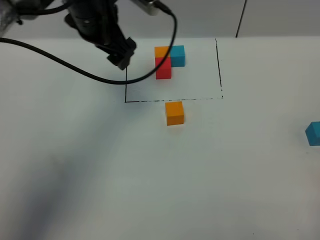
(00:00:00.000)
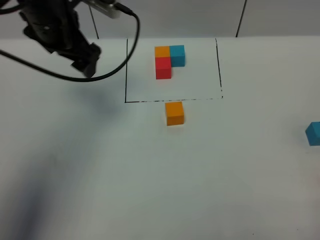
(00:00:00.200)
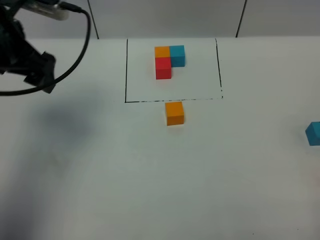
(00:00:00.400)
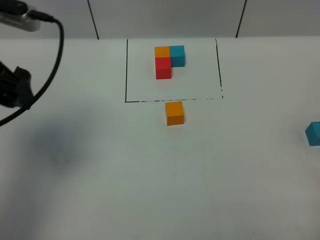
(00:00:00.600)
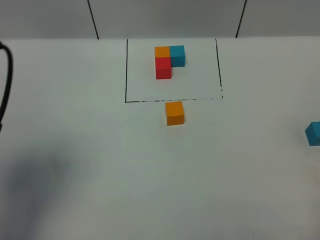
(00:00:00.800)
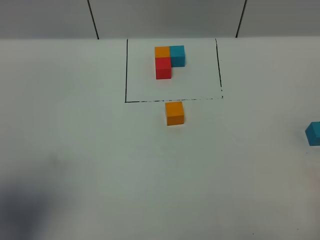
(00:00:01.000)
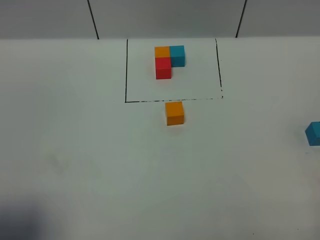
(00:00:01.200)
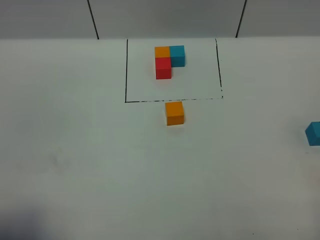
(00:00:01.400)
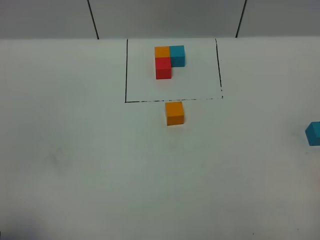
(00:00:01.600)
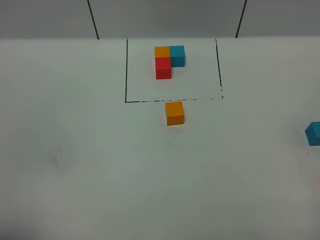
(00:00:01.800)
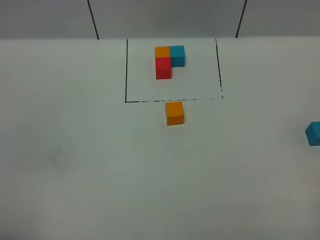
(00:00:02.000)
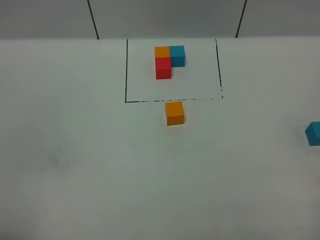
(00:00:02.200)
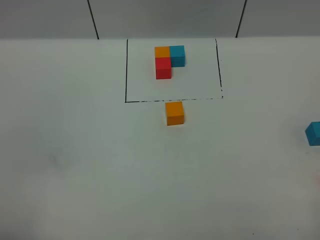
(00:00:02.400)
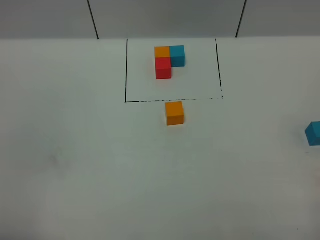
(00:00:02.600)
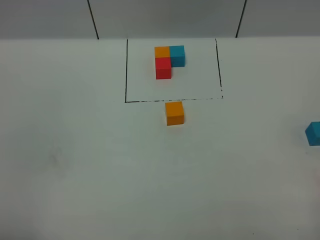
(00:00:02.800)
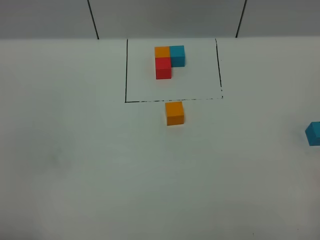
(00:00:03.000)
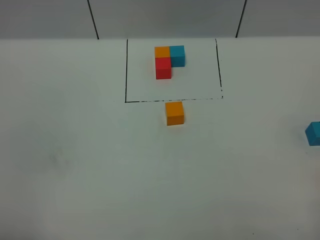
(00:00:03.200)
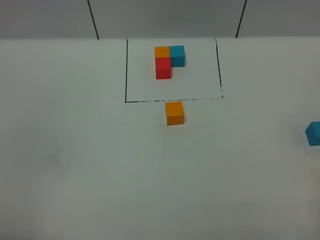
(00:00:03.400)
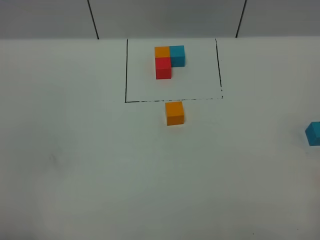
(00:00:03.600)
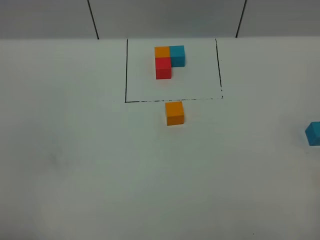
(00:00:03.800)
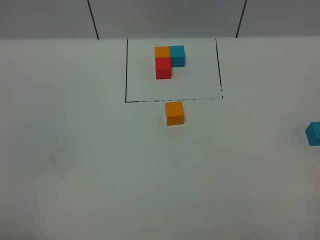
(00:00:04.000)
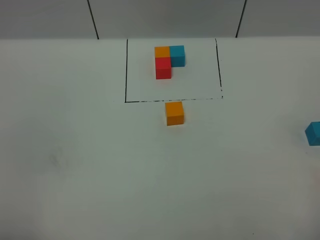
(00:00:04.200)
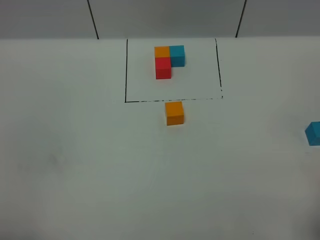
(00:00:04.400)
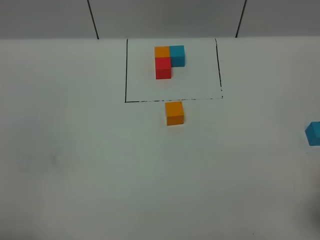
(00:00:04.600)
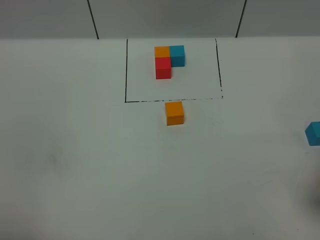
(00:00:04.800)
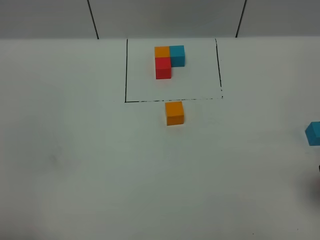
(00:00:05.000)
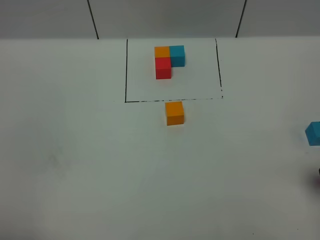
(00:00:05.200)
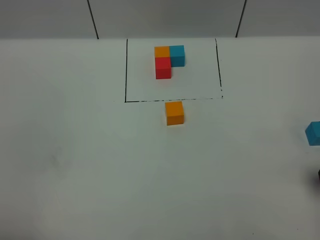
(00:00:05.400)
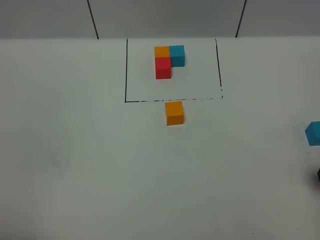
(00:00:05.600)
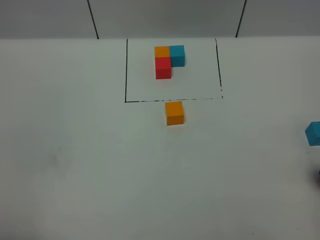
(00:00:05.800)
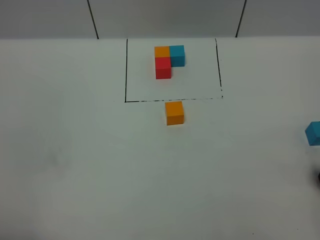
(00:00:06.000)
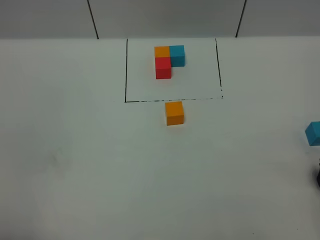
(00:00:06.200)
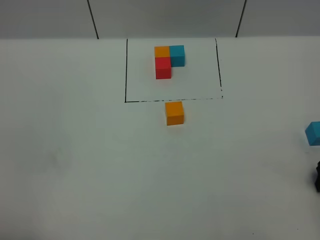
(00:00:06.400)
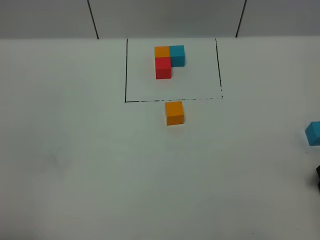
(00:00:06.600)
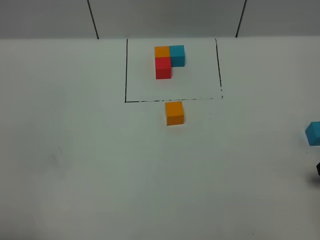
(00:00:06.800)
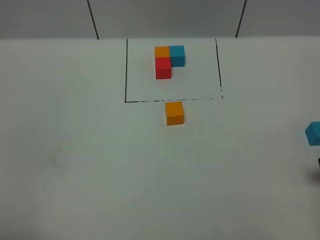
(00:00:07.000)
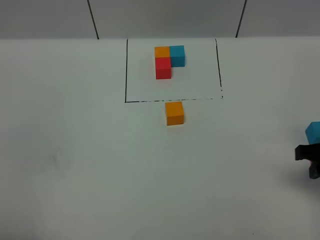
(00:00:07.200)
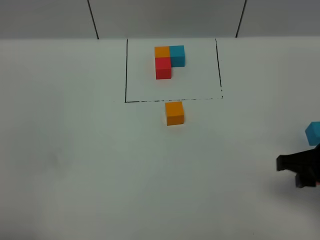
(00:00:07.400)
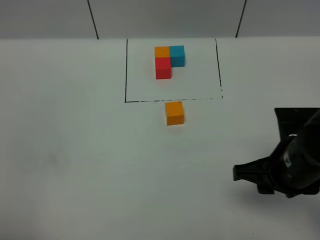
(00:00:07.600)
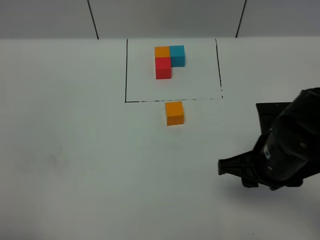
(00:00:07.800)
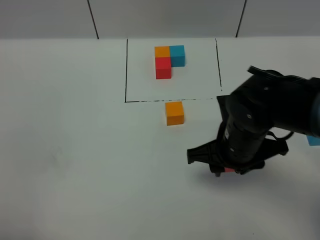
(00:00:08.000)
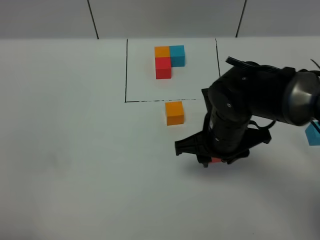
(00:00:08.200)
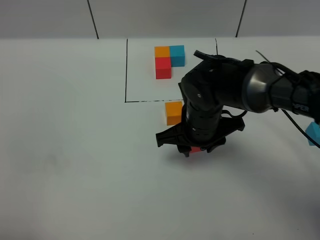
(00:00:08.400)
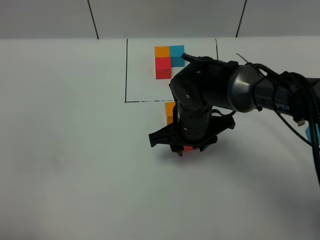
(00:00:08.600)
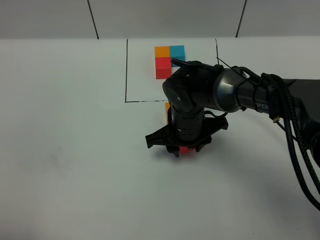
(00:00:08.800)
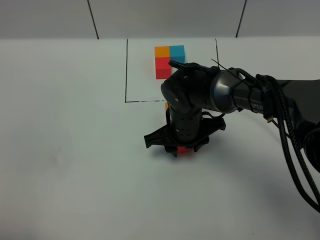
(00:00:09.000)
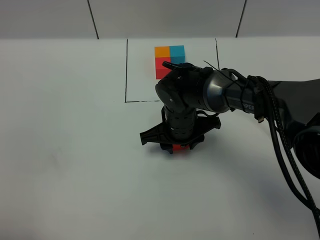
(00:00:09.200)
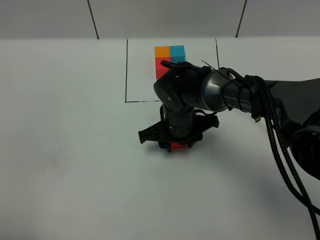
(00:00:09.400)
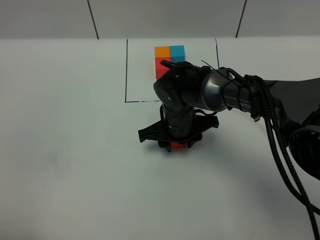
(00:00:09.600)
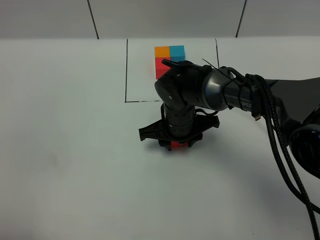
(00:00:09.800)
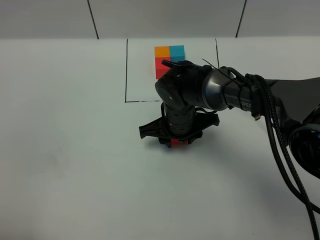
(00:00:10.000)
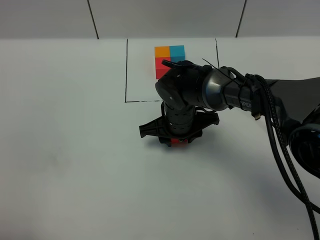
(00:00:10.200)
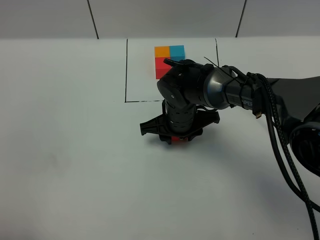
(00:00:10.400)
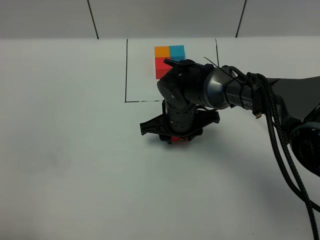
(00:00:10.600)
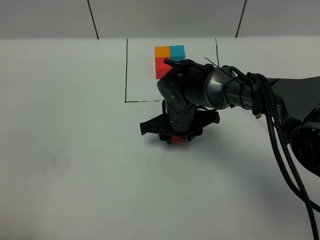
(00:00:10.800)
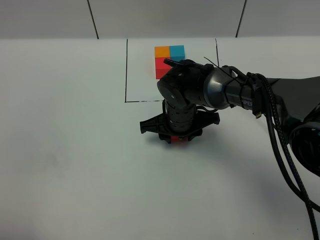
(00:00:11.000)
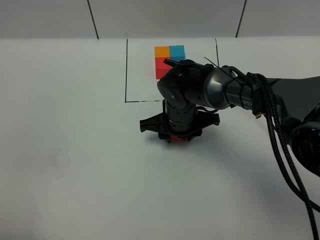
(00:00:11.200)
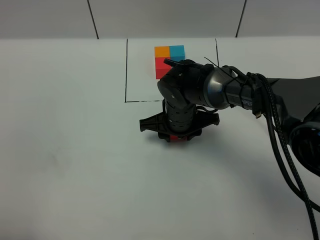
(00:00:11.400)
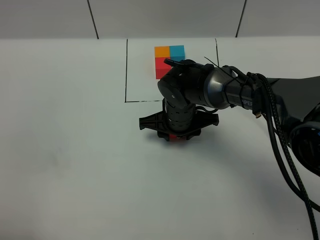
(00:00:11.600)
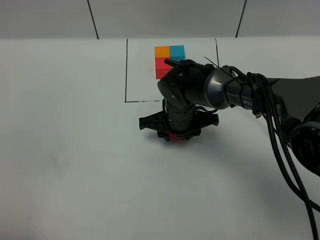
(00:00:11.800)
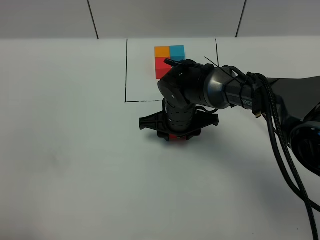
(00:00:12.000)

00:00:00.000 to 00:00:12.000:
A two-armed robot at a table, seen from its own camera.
Task of the whole recording: According to the building block template in front, assemble the scattered blocks together.
00:00:00.000 to 00:00:01.600: The left gripper goes roughly 40 cm backward.
00:00:06.000 to 00:00:07.600: The right gripper goes about 20 cm to the left, and closes up.
00:00:07.600 to 00:00:09.000: The right gripper goes about 20 cm forward, to the left and downward.
00:00:09.000 to 00:00:12.000: The grippers move only a little.

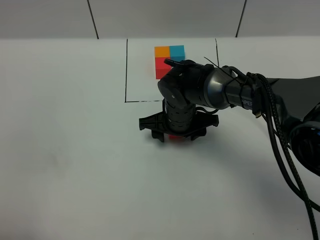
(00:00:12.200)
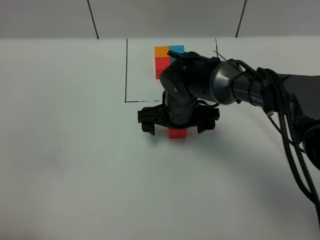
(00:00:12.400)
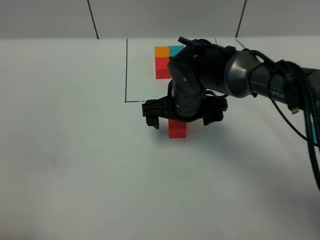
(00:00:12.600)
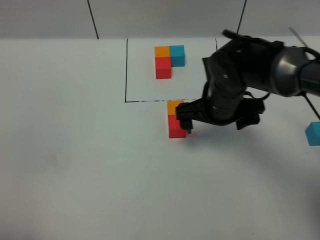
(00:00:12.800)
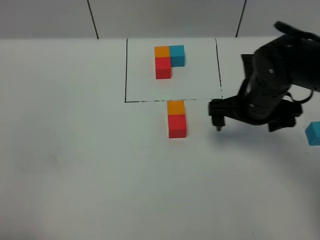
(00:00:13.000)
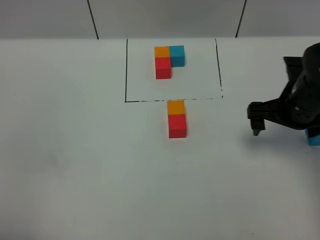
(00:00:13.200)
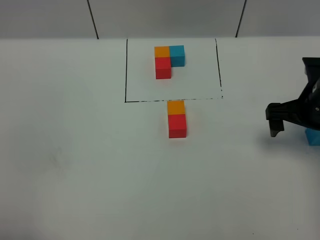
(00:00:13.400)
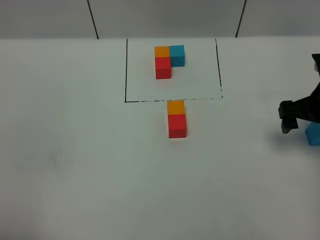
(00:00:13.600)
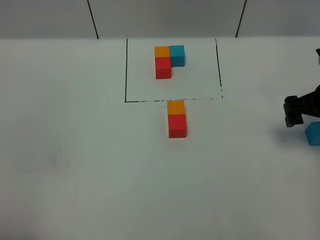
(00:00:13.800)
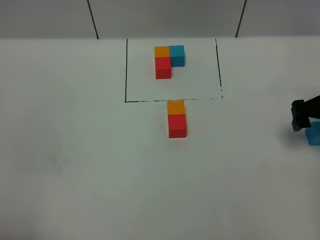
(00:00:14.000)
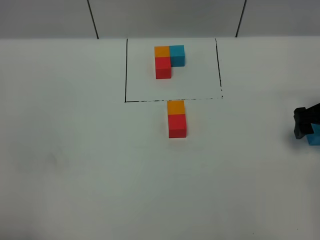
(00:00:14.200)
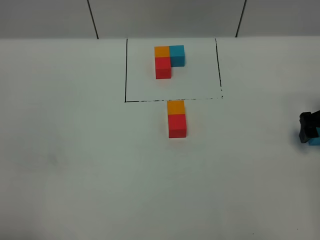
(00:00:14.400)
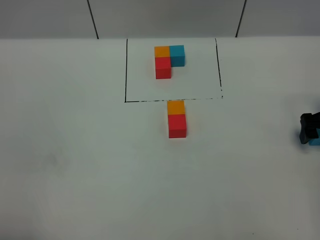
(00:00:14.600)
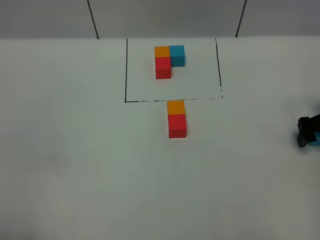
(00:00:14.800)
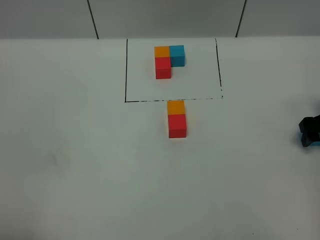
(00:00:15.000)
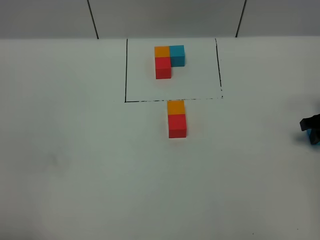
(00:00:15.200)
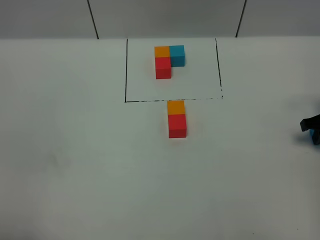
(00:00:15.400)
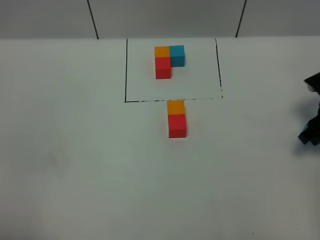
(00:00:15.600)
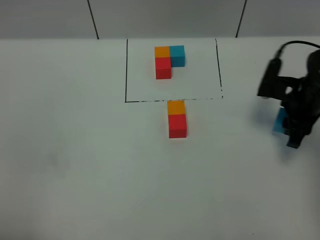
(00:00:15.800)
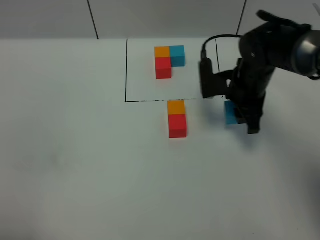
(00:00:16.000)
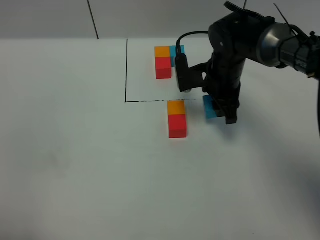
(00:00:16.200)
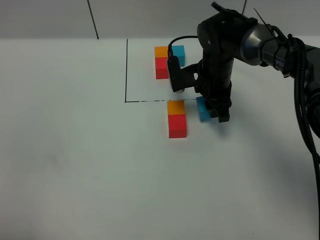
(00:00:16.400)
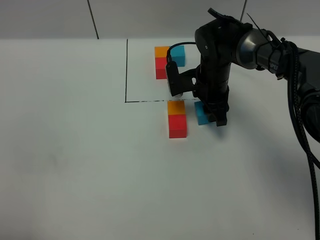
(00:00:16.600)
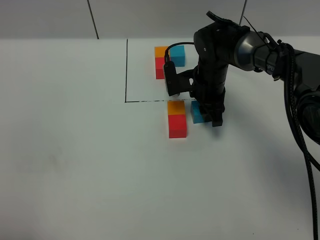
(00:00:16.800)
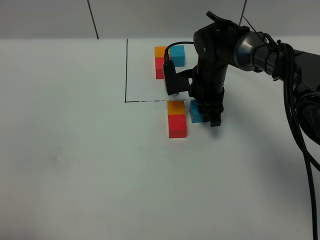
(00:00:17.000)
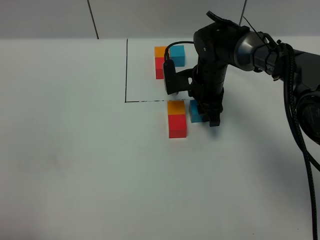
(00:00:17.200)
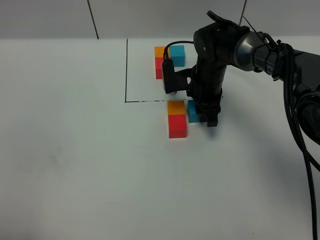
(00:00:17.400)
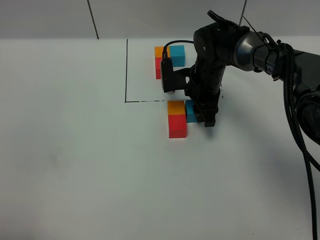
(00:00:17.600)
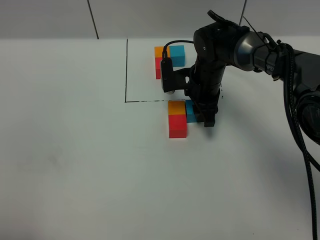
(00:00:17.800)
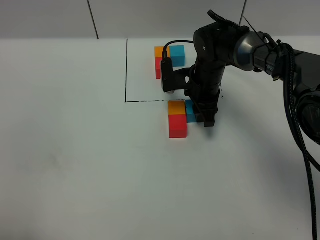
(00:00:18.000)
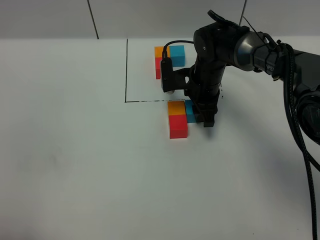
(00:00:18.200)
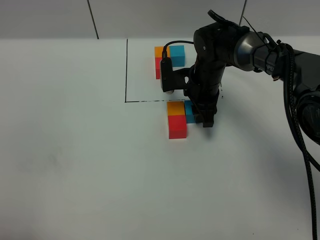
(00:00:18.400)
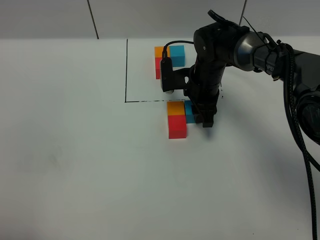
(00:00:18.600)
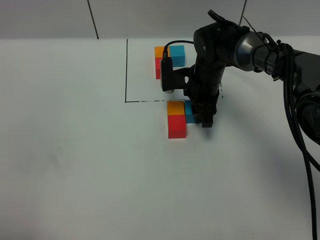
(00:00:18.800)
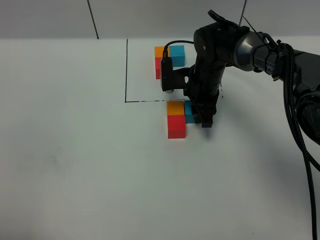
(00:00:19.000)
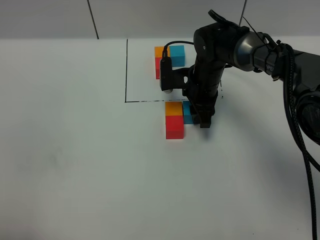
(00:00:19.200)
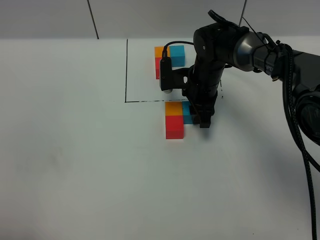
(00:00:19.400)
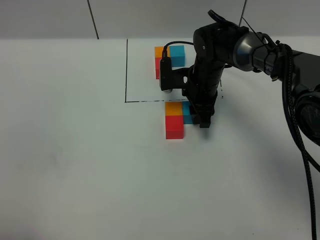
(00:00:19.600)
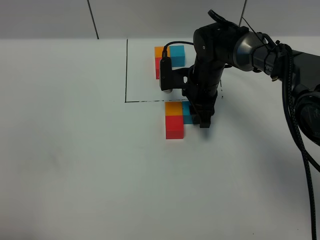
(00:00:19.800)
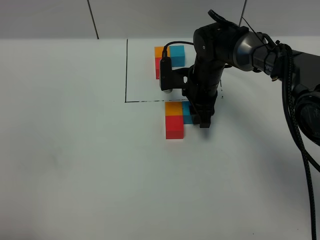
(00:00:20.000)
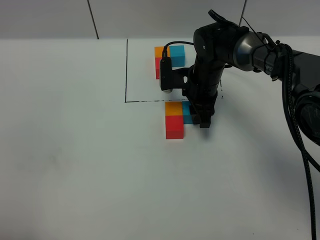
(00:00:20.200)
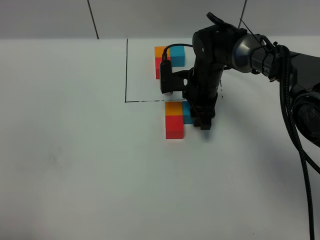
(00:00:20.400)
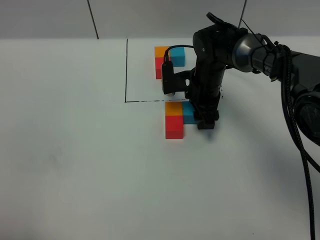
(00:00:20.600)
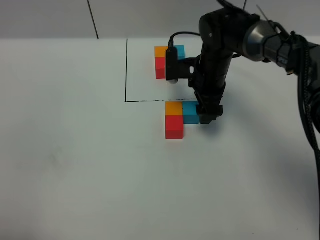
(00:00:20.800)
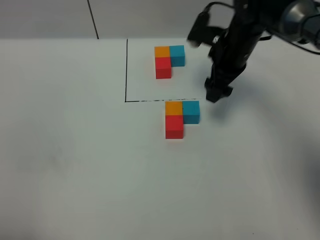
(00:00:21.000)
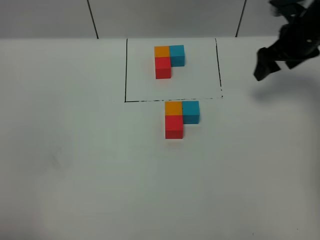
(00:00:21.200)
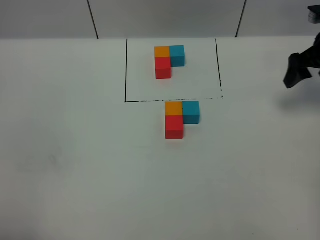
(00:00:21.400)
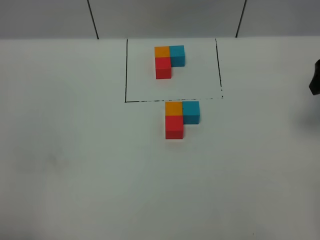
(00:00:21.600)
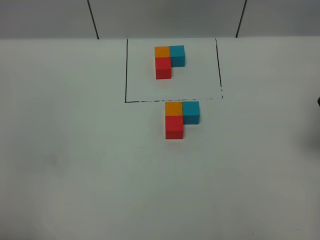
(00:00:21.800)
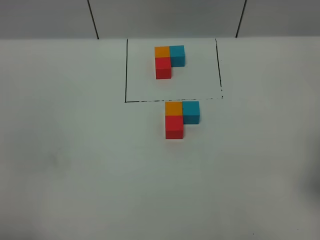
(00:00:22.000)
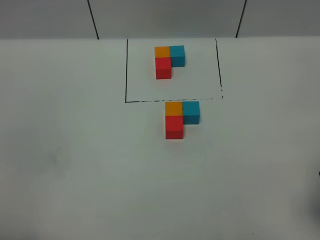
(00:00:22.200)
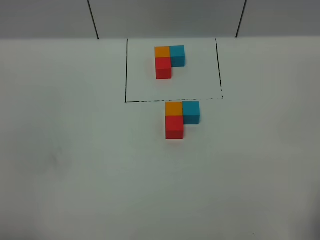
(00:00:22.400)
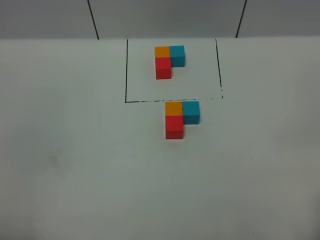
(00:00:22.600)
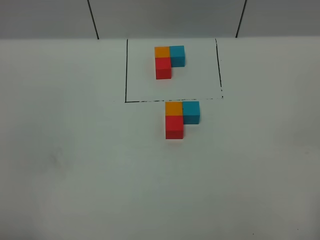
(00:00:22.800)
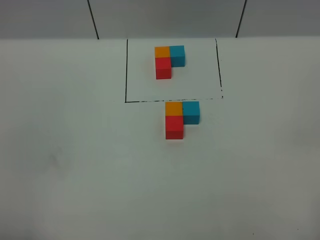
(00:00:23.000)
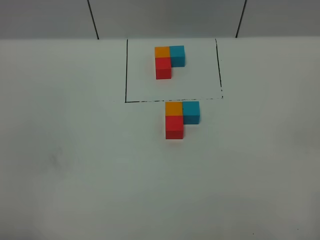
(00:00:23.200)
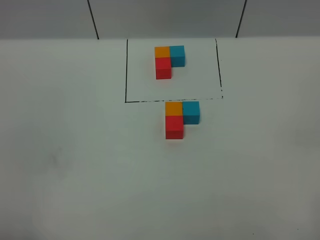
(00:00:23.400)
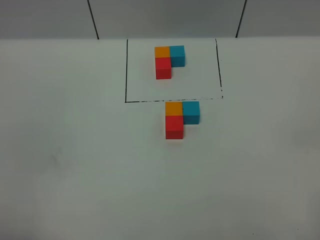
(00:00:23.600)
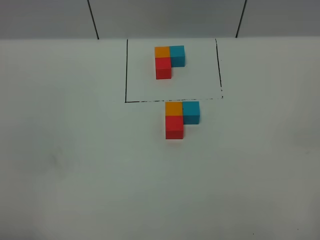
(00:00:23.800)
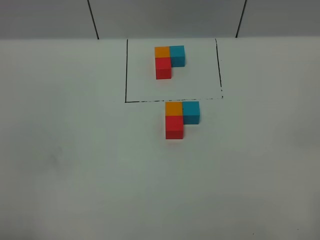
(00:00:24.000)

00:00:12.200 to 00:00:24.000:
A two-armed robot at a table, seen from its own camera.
Task of the whole recording: According to the building block template in front, assemble the scattered blocks together.
Step, 00:00:12.400 to 00:00:19.200: Put the blue build block on the right of the orange build block.
00:00:12.200 to 00:00:13.600: The right gripper heads to the right, covering approximately 25 cm, and opens.
00:00:13.600 to 00:00:15.200: The right gripper goes approximately 10 cm downward and to the right, and closes up.
00:00:15.200 to 00:00:16.600: The right gripper moves to the left, about 25 cm.
00:00:16.600 to 00:00:18.200: The grippers stay close to where they were, moving slightly.
00:00:18.200 to 00:00:19.600: Both grippers stay put.
00:00:19.600 to 00:00:21.000: The right gripper moves upward and to the right, some 10 cm, and opens its fingers.
00:00:21.000 to 00:00:22.600: The right gripper travels backward by approximately 40 cm.
